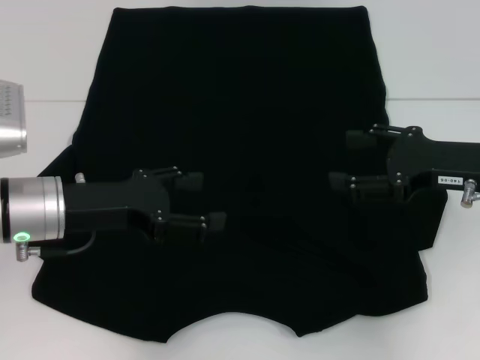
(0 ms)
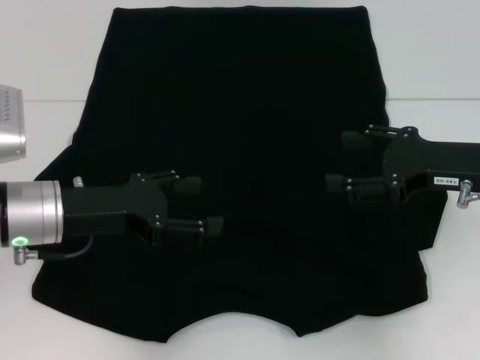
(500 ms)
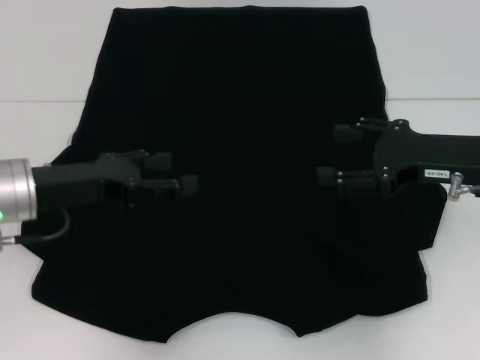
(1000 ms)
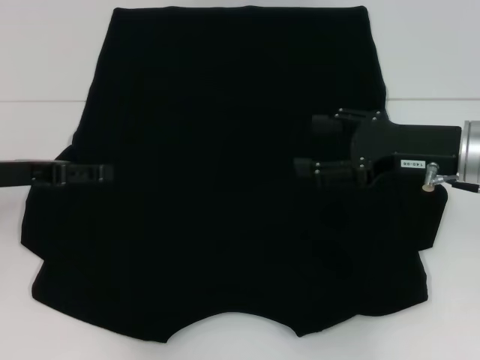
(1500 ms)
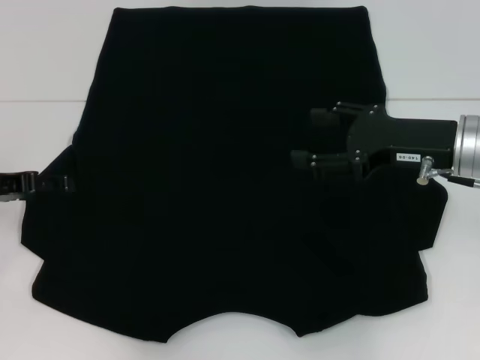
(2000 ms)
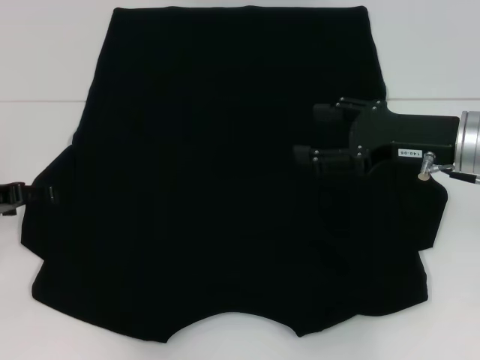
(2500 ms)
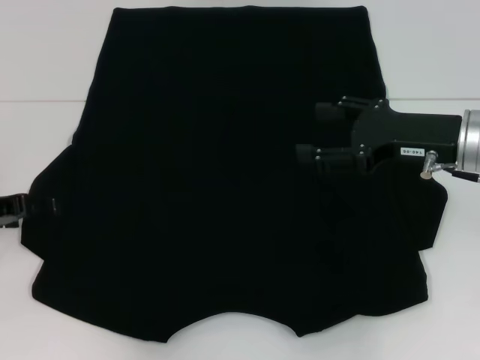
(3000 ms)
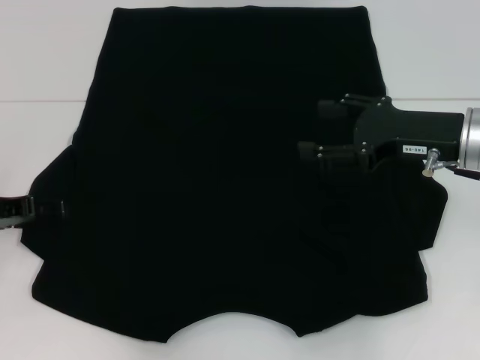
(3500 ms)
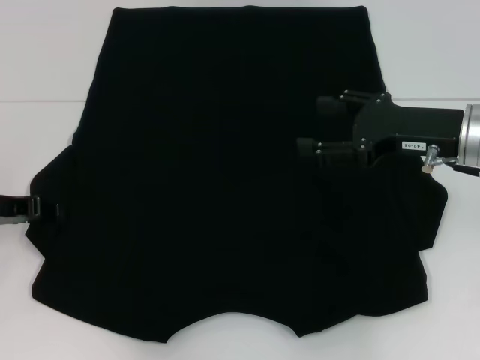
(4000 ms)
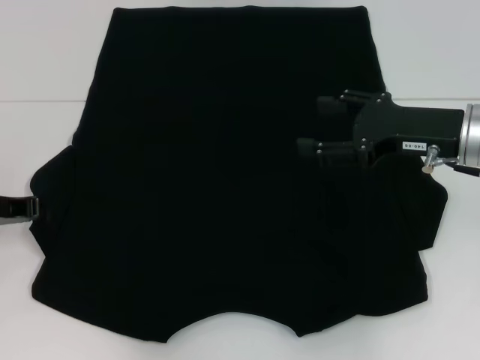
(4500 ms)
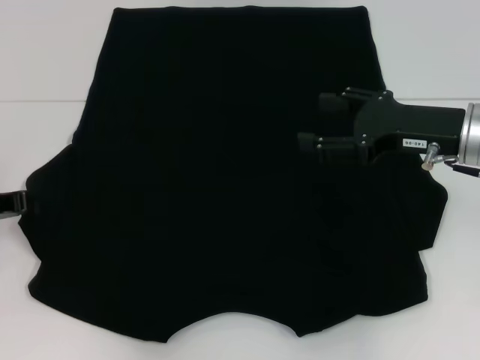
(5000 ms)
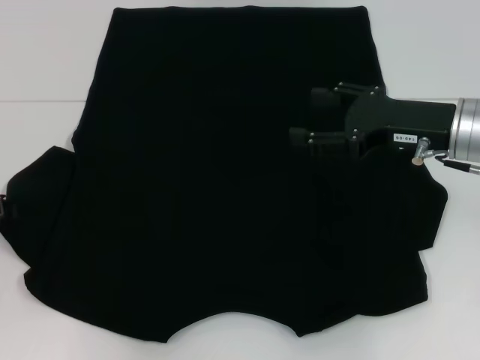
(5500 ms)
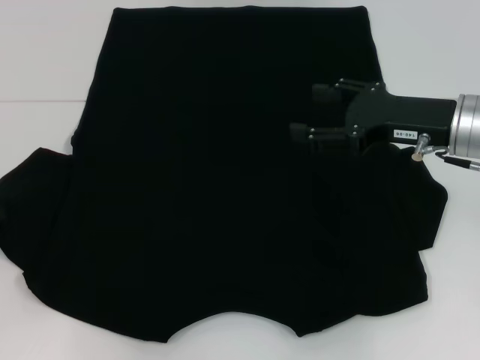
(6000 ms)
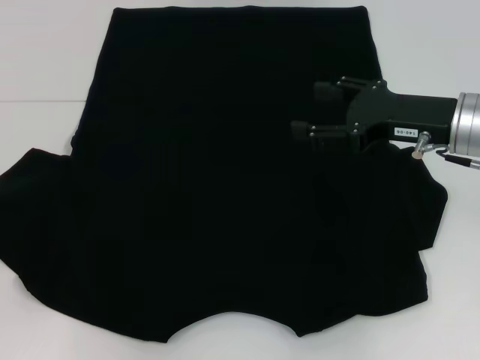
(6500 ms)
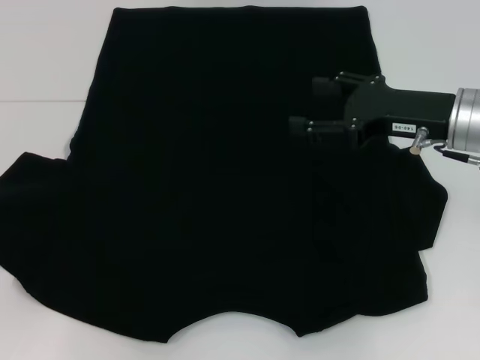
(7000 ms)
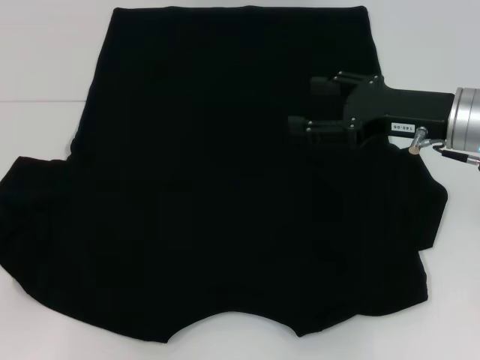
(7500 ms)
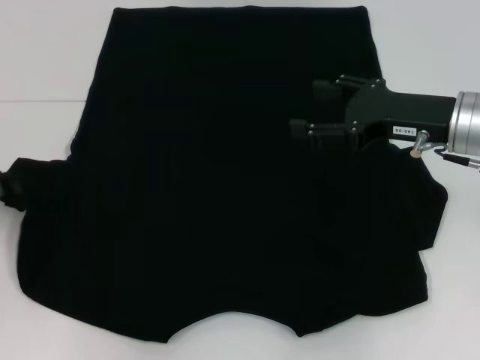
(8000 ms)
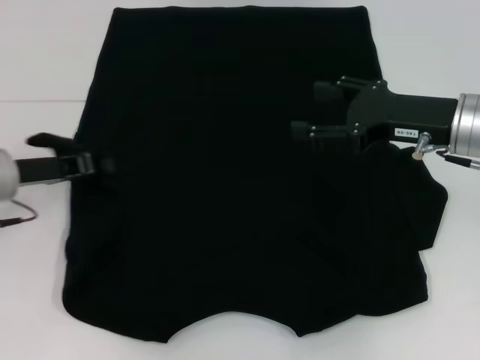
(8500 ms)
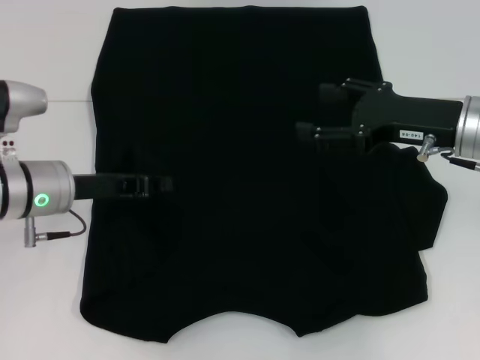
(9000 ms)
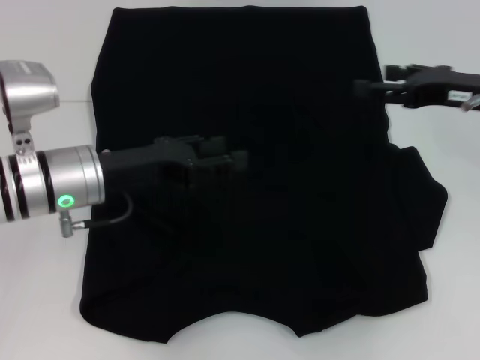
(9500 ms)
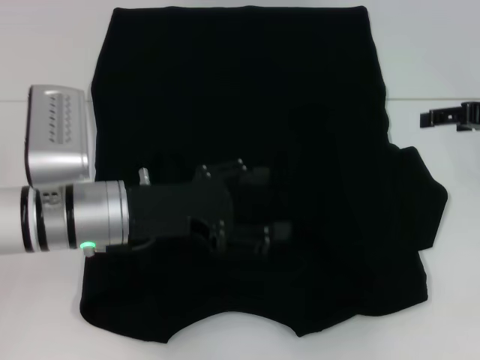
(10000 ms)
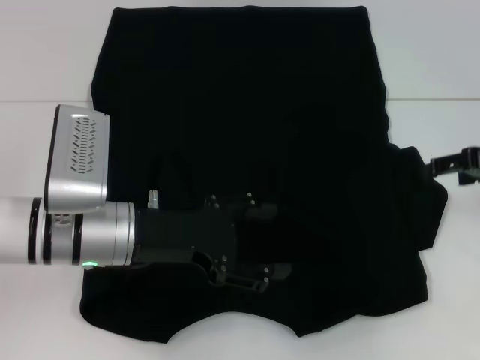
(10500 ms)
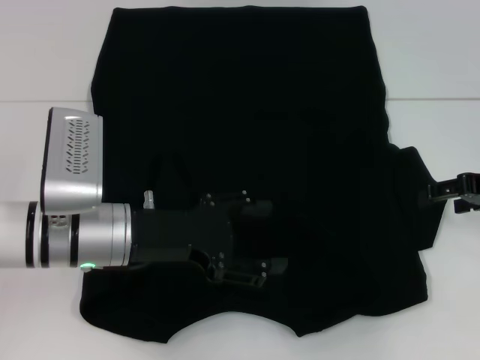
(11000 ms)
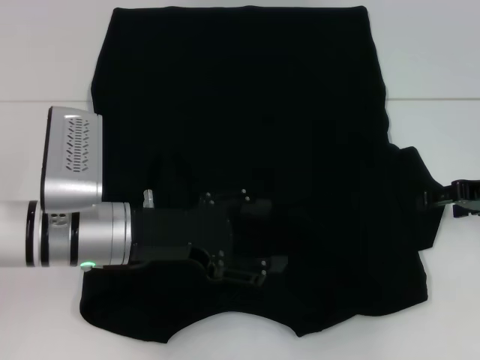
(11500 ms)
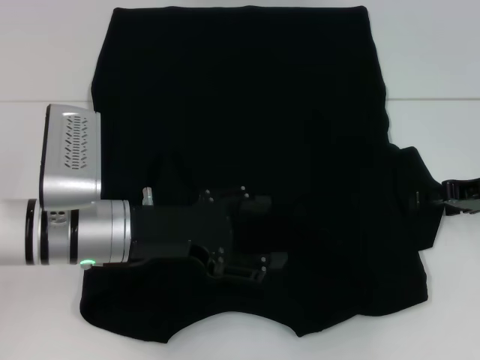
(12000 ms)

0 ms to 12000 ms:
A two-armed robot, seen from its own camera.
Step, 0 ms to 9500 ms: Fold the bottom left sleeve with your left hand.
0 ms to 2000 ms: The left gripper heads to the left, covering approximately 10 cm.
2000 ms to 4000 ms: The grippers move only a little.
4000 ms to 6000 ms: The left gripper changes place by about 5 cm, and closes.
6000 ms to 8000 ms: The grippers move only a little.
8000 ms to 10000 ms: The right gripper moves to the right, about 10 cm. Meanwhile the left gripper travels to the right by roughly 20 cm, and opens up.
10000 ms to 12000 ms: The right gripper heads downward, covering approximately 5 cm.

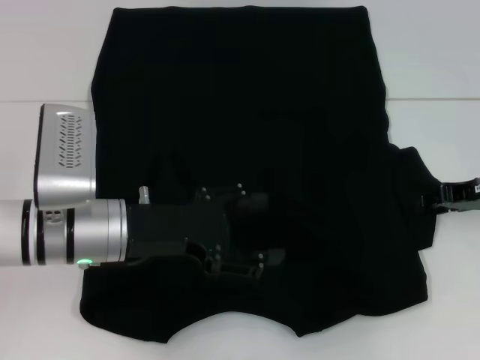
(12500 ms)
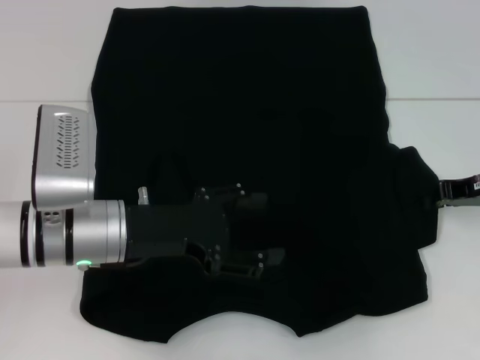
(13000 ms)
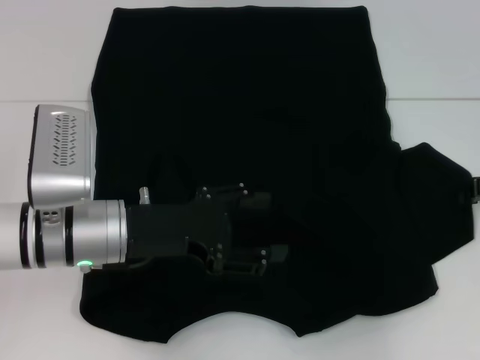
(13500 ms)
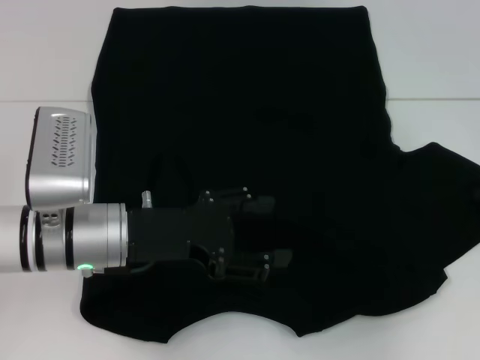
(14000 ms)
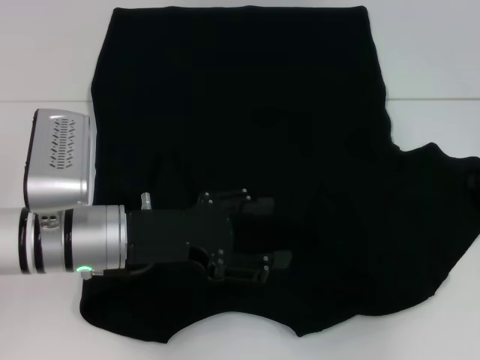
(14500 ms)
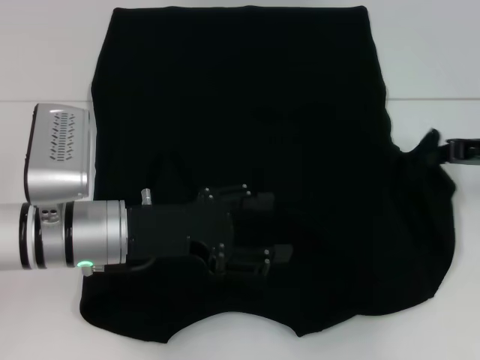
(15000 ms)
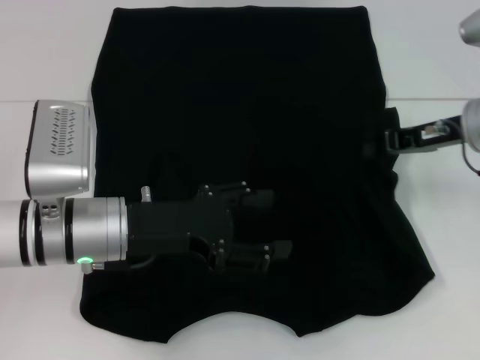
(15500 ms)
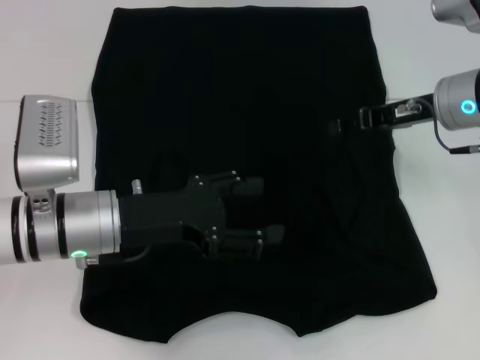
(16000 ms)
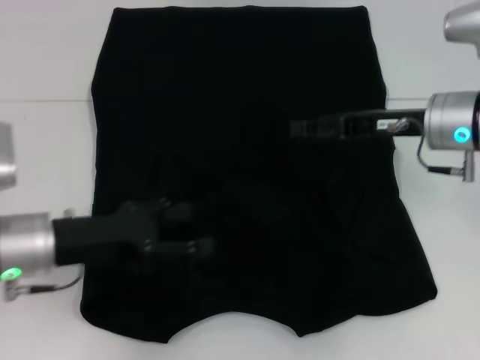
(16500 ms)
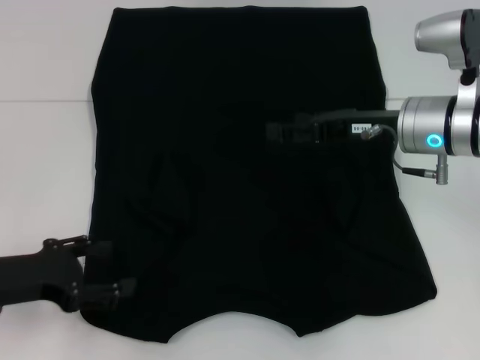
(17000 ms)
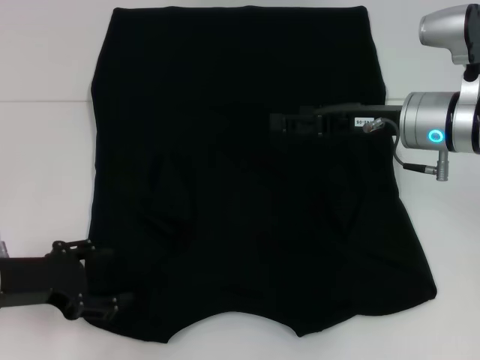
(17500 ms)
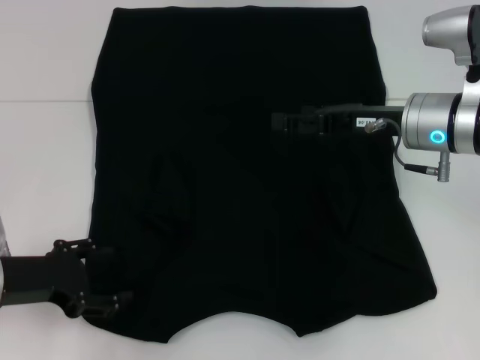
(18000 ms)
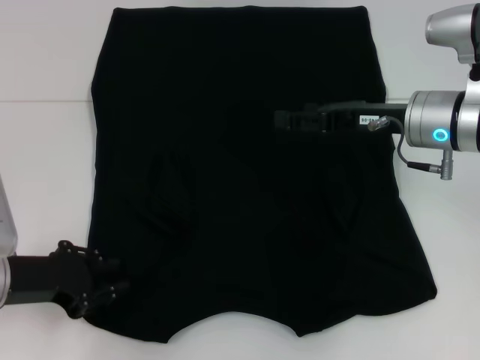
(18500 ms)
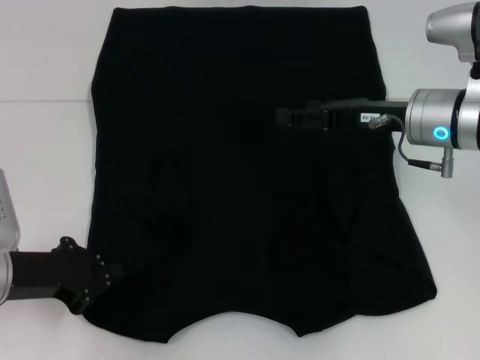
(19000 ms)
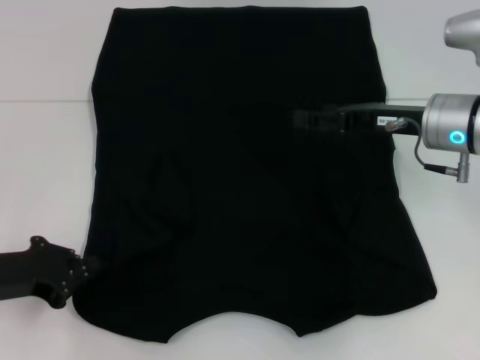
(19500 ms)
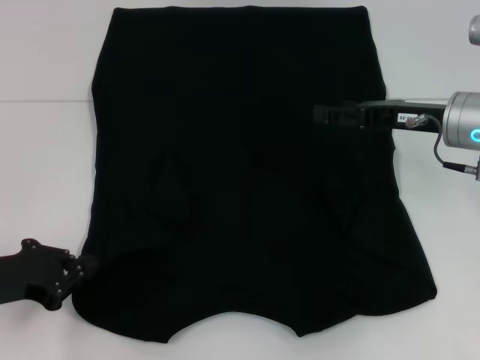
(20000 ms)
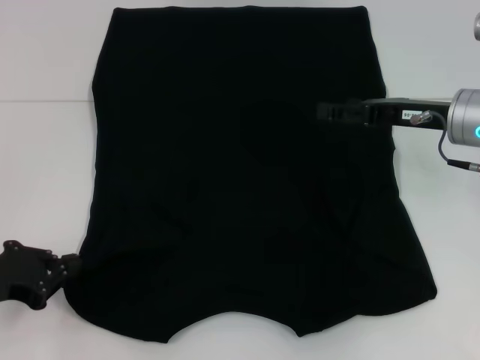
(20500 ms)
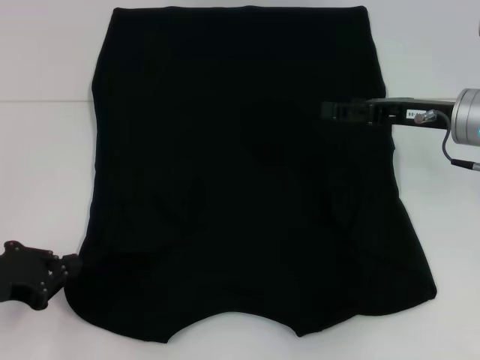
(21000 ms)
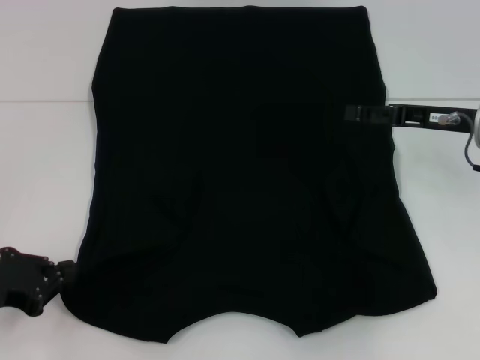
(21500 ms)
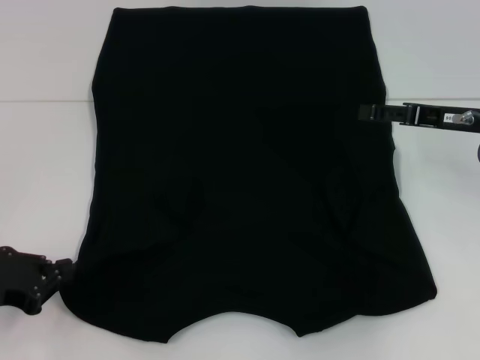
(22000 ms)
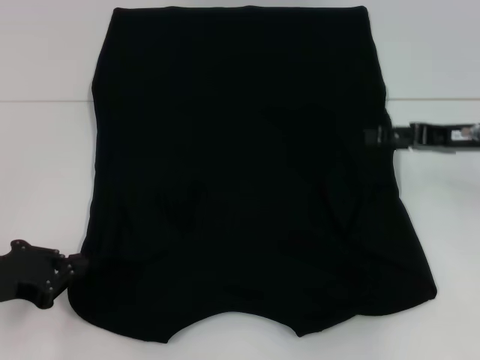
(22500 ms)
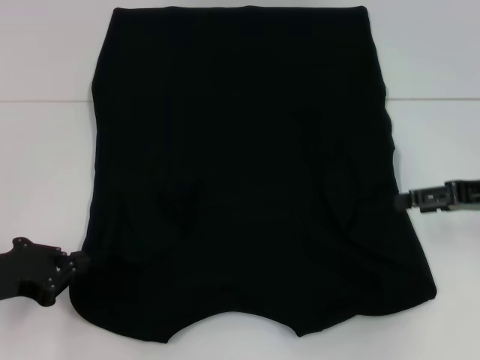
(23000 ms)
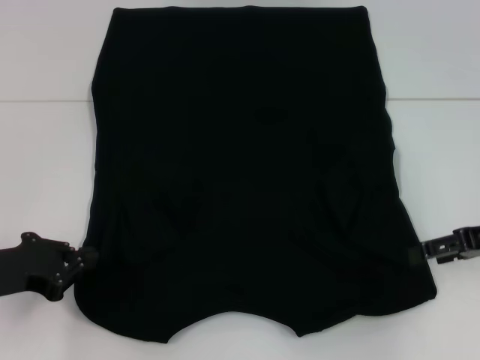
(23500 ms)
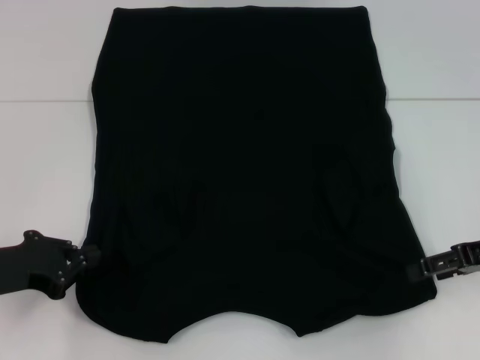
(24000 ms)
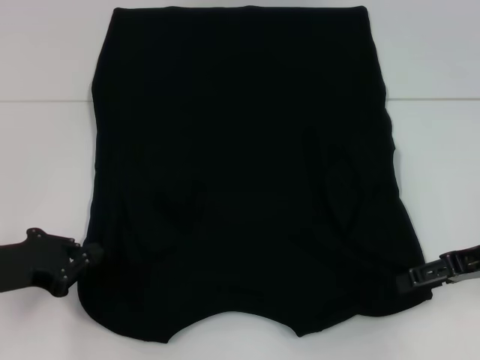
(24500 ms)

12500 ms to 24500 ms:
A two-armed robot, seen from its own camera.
Step, 12500 ms to 15500 ms: Fold the bottom right sleeve with your right hand.
12500 ms to 14500 ms: The right gripper closes.
14500 ms to 16500 ms: The right gripper shifts some 15 cm to the left, and opens; the left gripper moves to the left, some 5 cm.
16500 ms to 18500 ms: The left gripper ends up approximately 5 cm from where it was.
18500 ms to 20500 ms: The left gripper closes up.
20500 ms to 22500 ms: The right gripper moves about 5 cm.
22500 ms to 24500 ms: The right gripper goes roughly 5 cm backward.

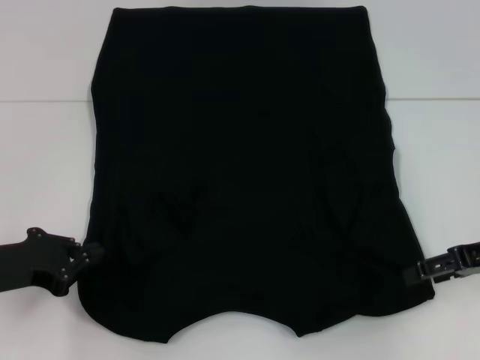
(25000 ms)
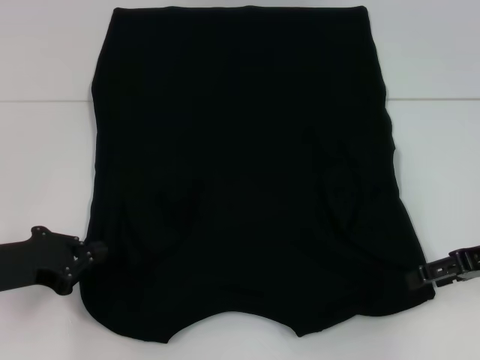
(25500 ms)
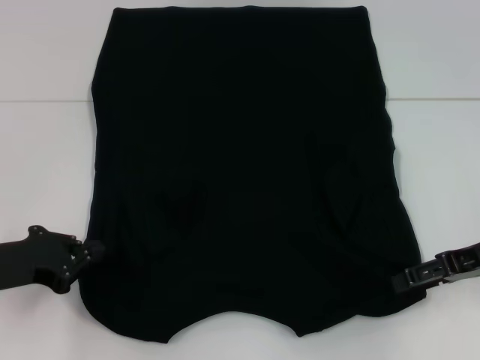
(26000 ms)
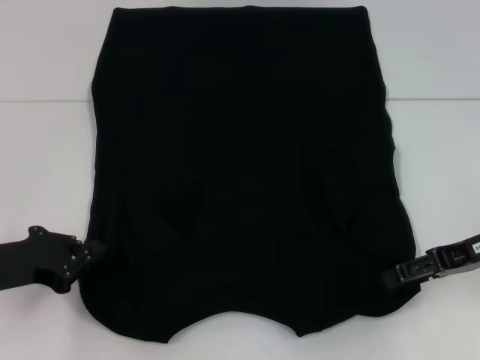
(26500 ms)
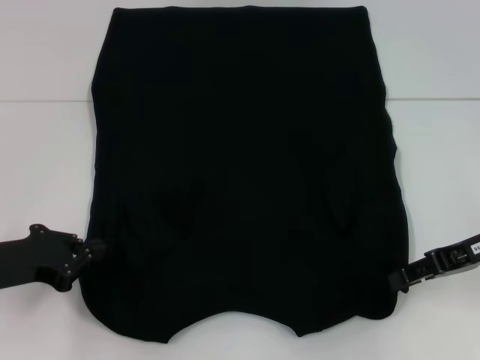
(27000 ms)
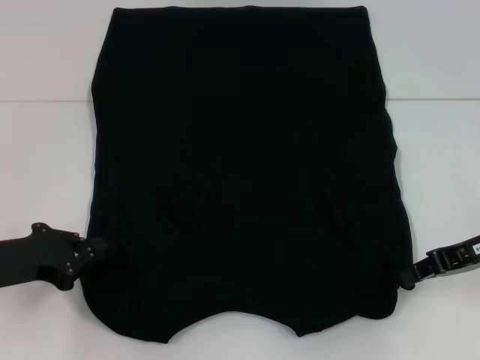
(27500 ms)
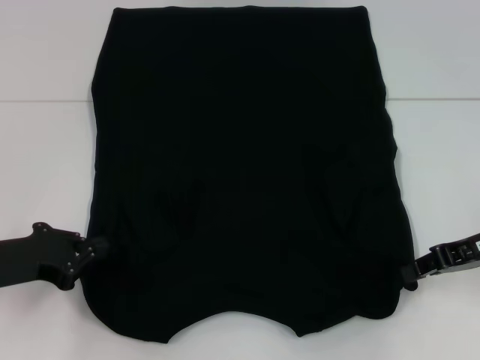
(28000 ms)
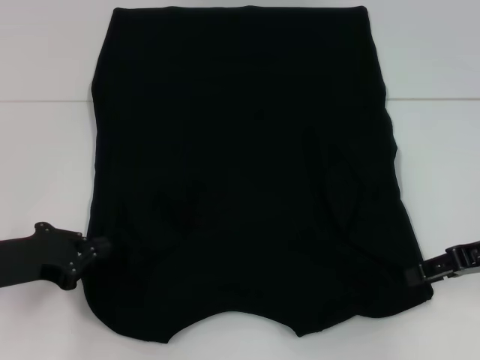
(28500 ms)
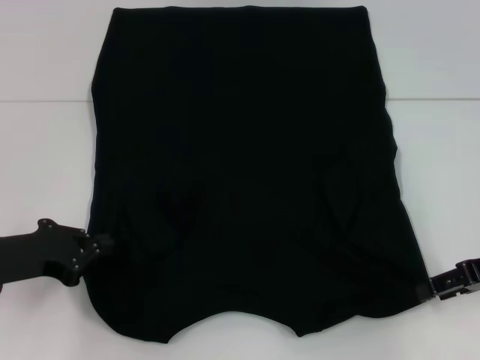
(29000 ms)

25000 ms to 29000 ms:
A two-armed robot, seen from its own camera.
Step, 25000 ms to 27500 ms: Grab the bottom left corner with your left hand.
Step, 25000 ms to 27500 ms: Grab the bottom right corner with your right hand.
25000 ms to 27000 ms: The grippers move only a little.
27000 ms to 29000 ms: The right gripper closes and opens again.
